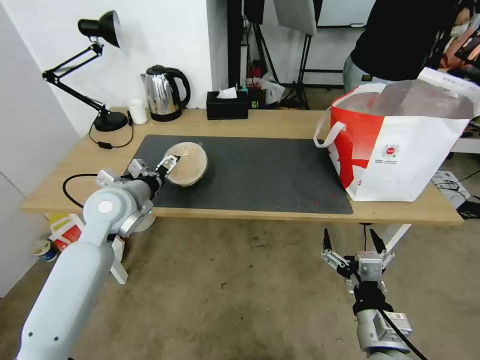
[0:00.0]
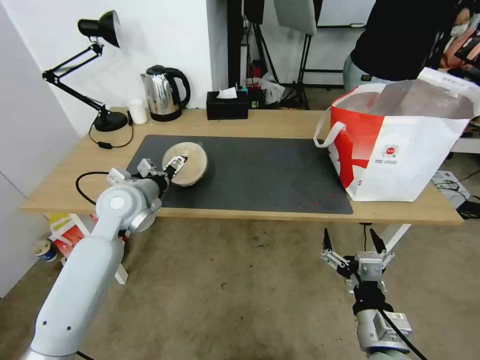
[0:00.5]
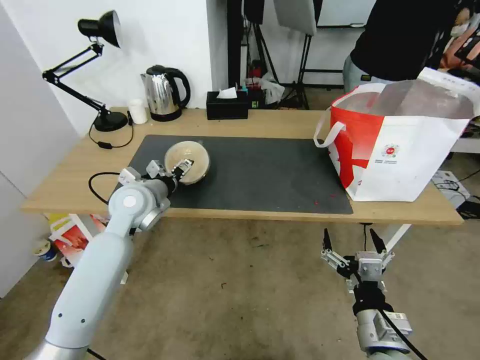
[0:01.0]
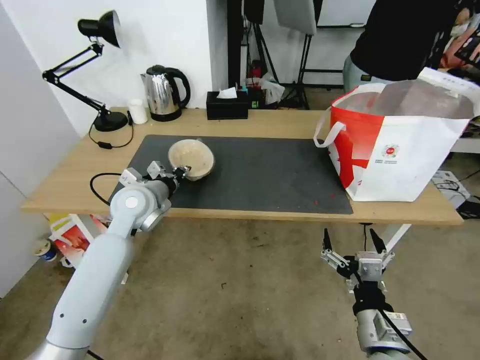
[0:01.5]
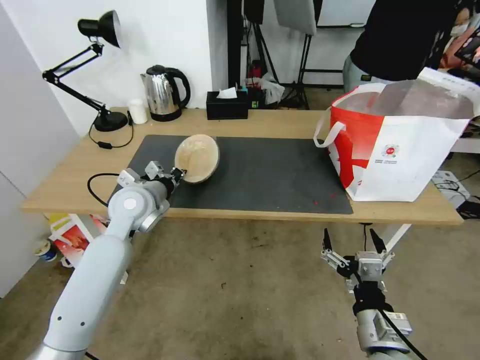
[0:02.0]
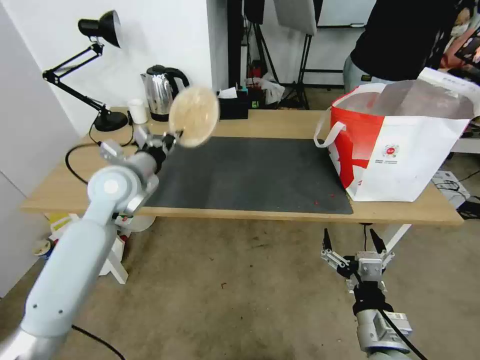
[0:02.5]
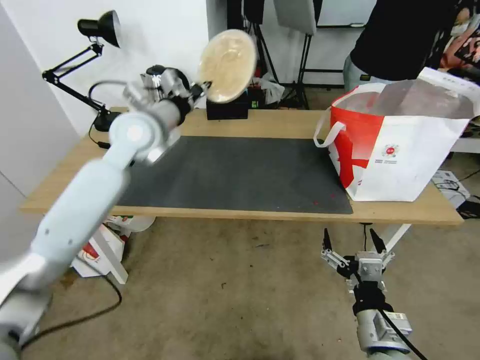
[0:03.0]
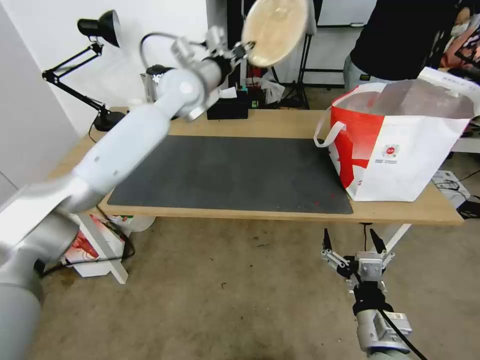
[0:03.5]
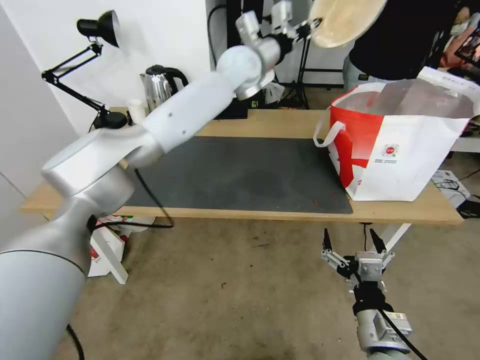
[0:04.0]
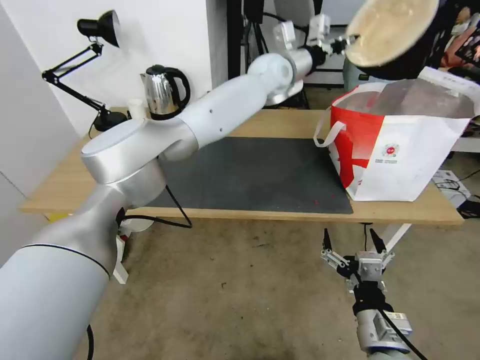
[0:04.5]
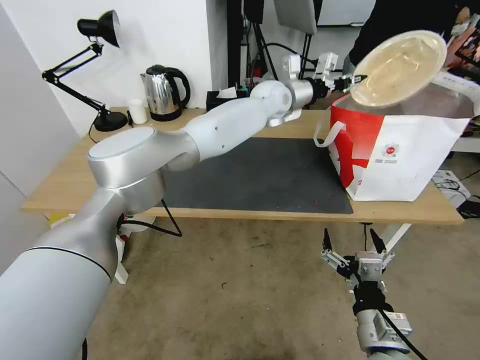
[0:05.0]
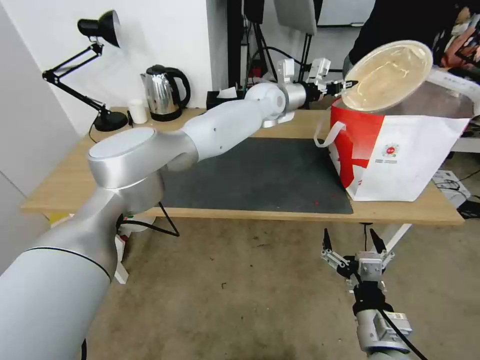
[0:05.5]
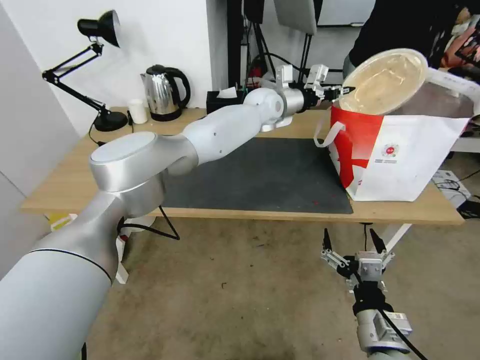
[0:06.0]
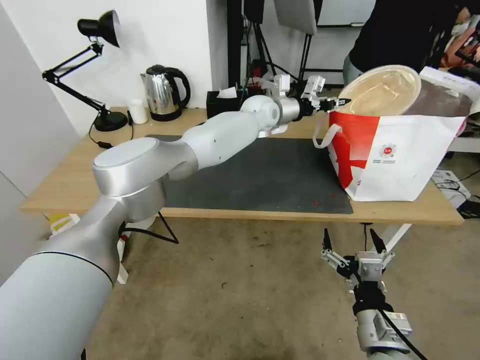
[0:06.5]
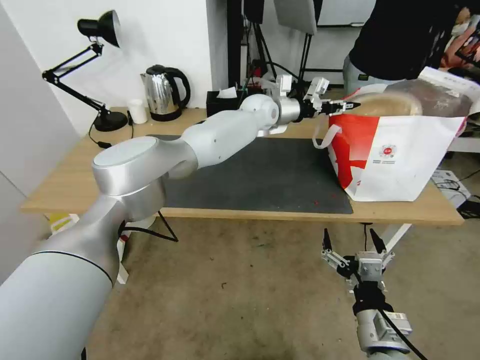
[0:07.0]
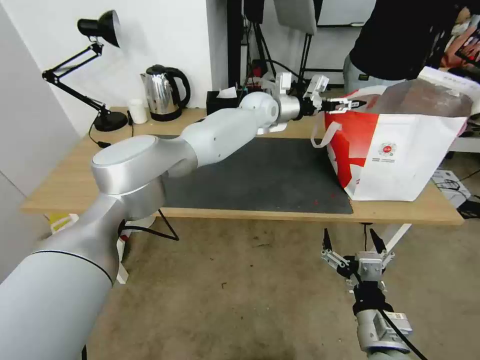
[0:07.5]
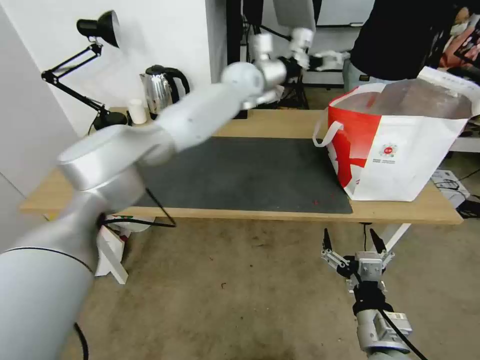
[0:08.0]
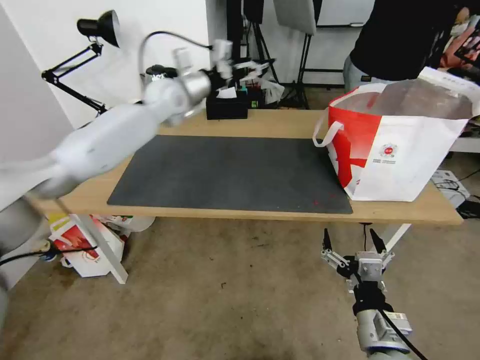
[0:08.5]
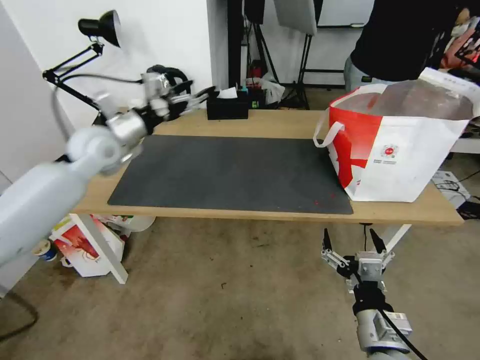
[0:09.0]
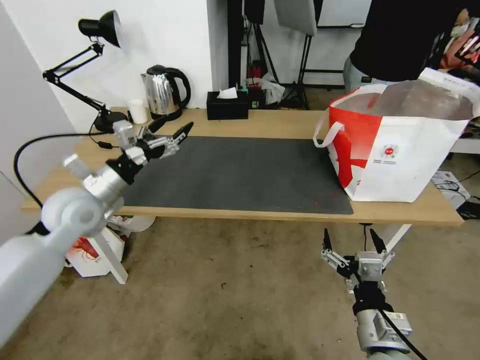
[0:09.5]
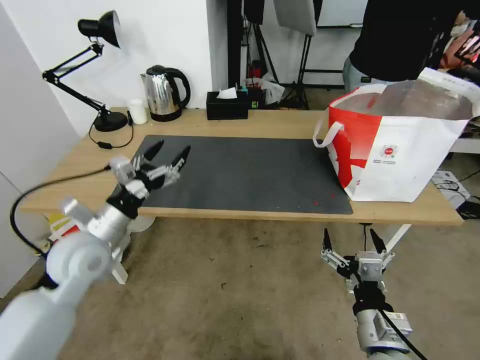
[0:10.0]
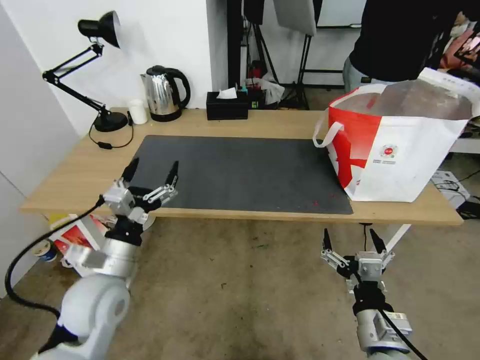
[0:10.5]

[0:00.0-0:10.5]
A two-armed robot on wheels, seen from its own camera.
Task of the whole recording: Pick up the trash from the table and place it into the takeout bag.
0:00.0 to 0:02.0: The left gripper closes up.
0:02.0 to 0:04.0: The left gripper is displaced to the right, upward and forward by some 40 cm.
0:04.0 to 0:06.5: The left gripper is displaced downward and to the right by roughly 15 cm.
0:06.5 to 0:08.5: The left gripper shifts approximately 20 cm to the left and upward, and opens up.
0:08.5 to 0:10.5: The left gripper travels backward, downward and to the left by some 50 cm.

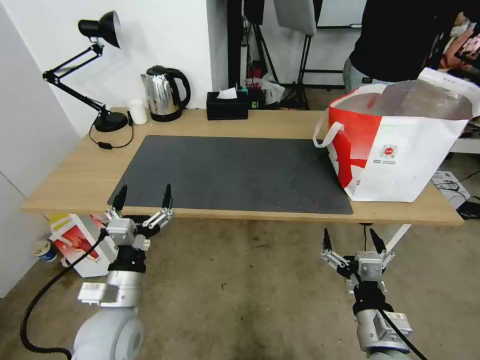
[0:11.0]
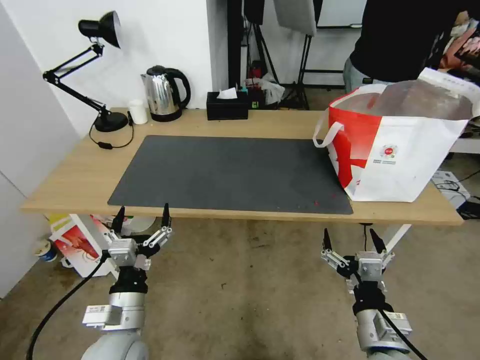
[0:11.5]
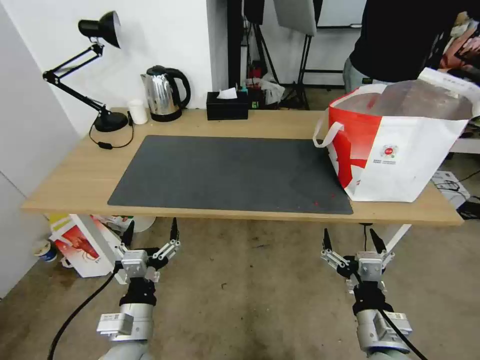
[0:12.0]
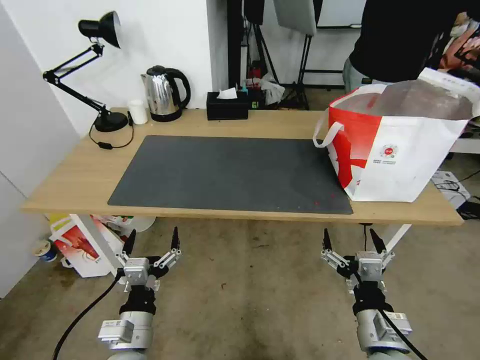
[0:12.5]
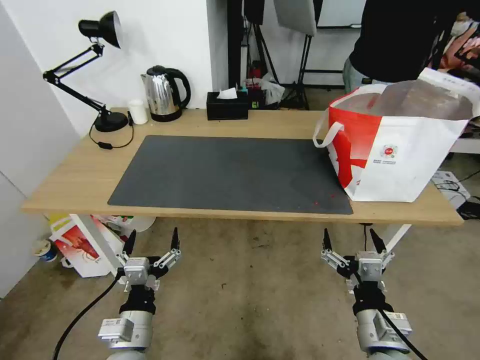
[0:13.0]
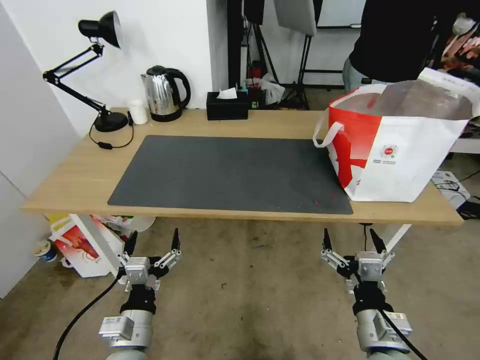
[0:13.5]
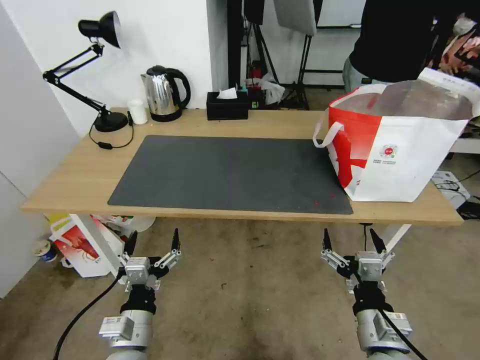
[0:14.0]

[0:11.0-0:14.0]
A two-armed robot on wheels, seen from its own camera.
Task of the whole recording: Pick up the trash from the table and place it into the takeout bag.
0:11.0 to 0:12.5: The left gripper travels backward and downward by about 10 cm.
0:12.5 to 0:14.0: Both grippers stay about where they are.
